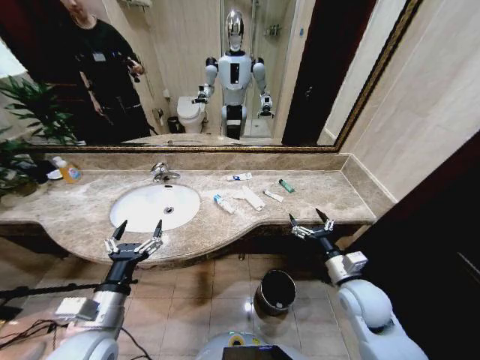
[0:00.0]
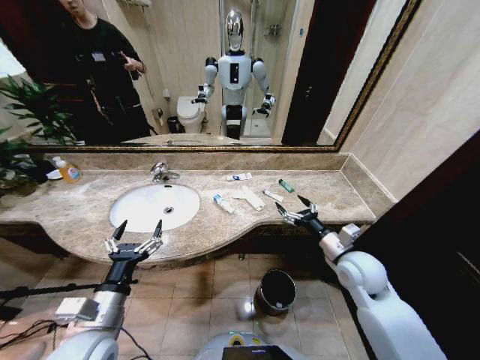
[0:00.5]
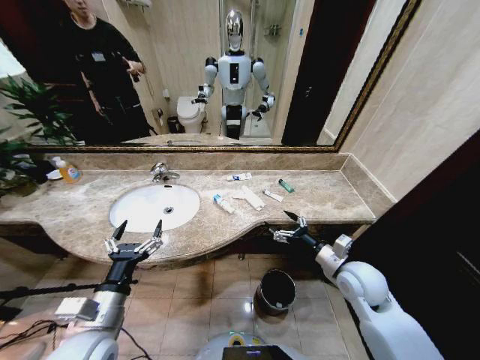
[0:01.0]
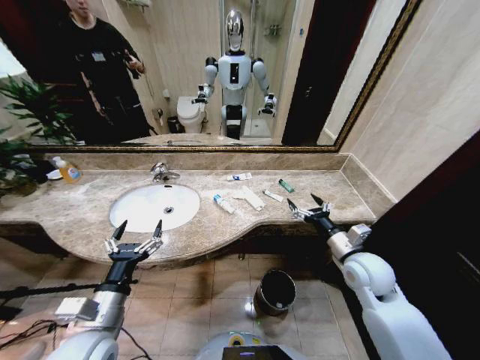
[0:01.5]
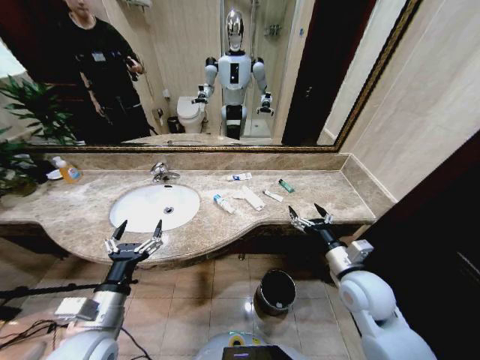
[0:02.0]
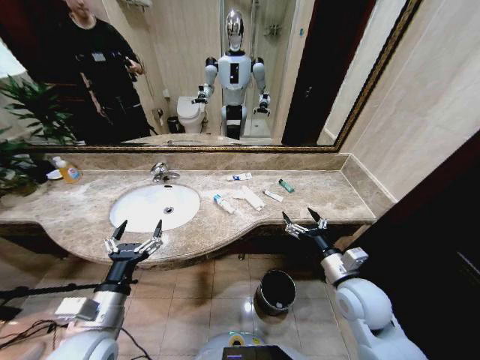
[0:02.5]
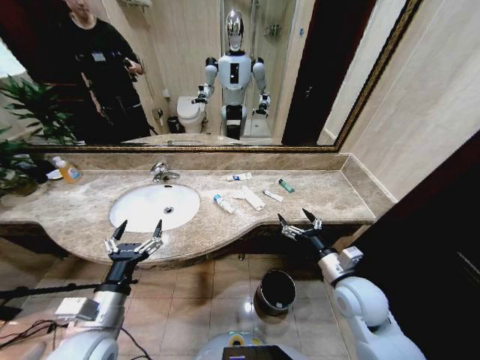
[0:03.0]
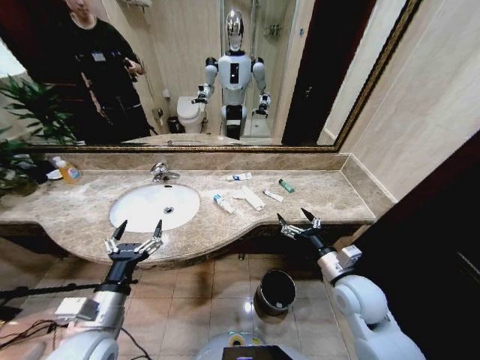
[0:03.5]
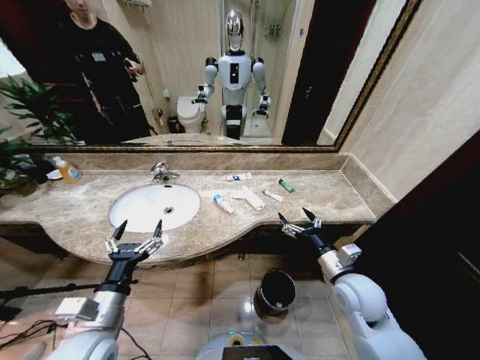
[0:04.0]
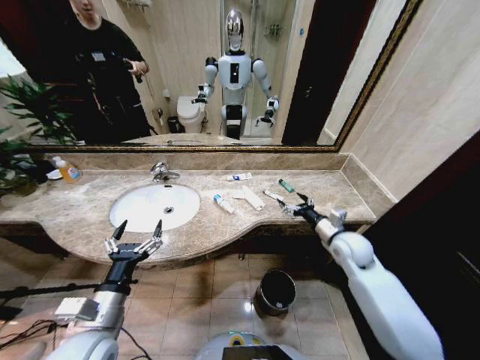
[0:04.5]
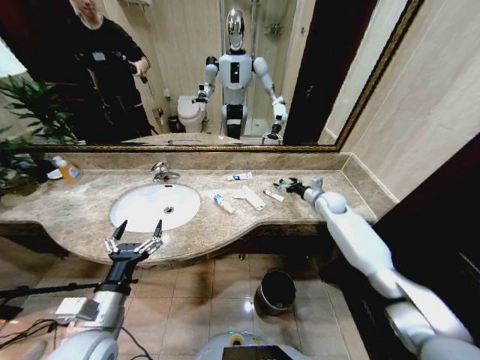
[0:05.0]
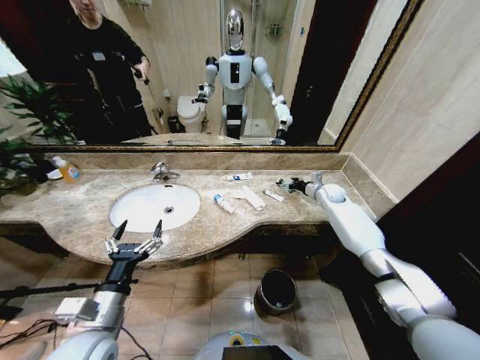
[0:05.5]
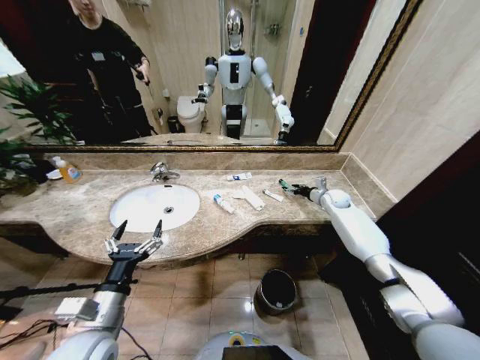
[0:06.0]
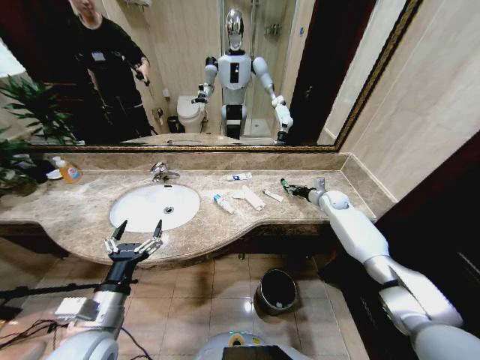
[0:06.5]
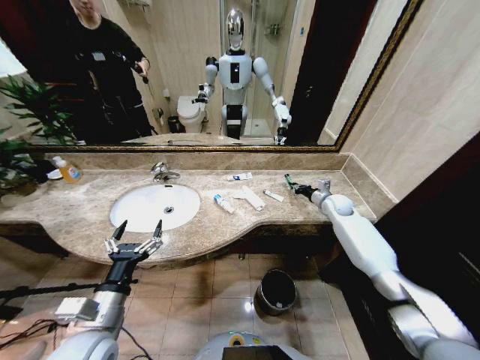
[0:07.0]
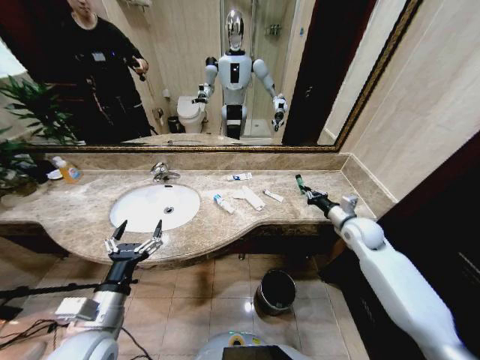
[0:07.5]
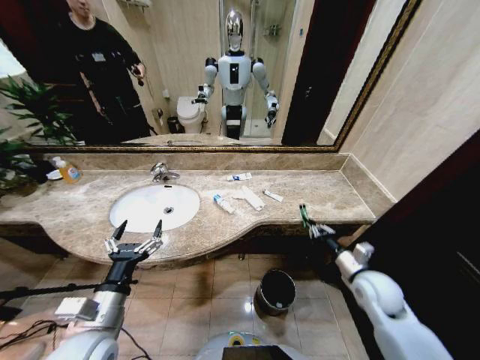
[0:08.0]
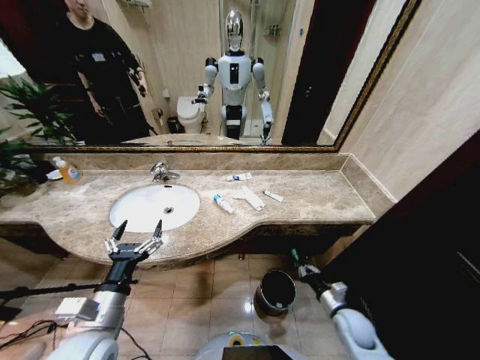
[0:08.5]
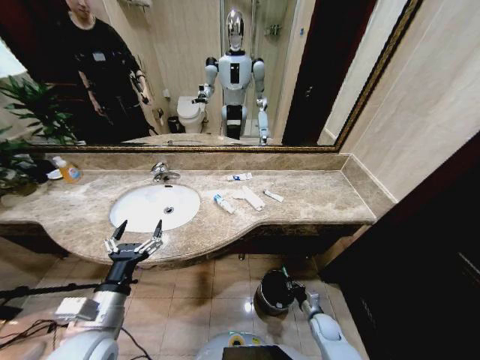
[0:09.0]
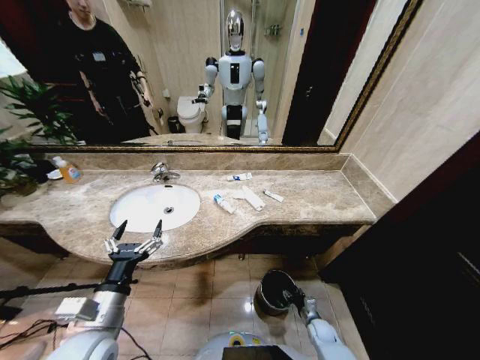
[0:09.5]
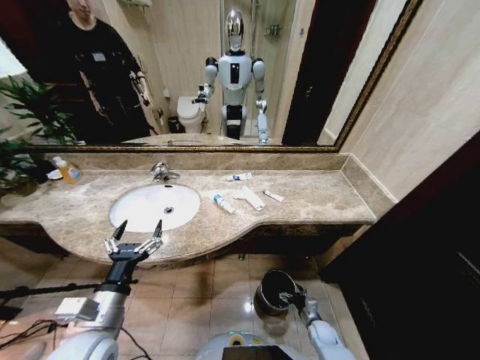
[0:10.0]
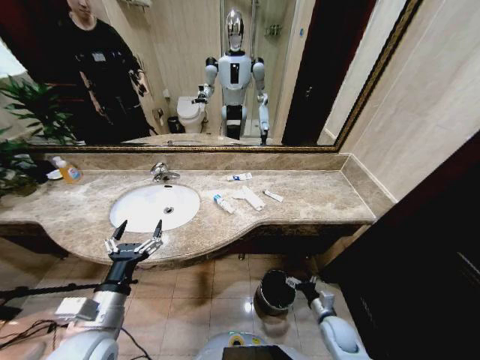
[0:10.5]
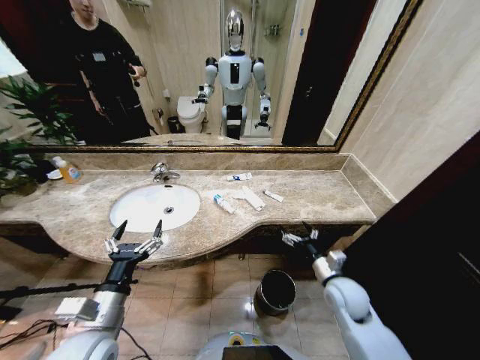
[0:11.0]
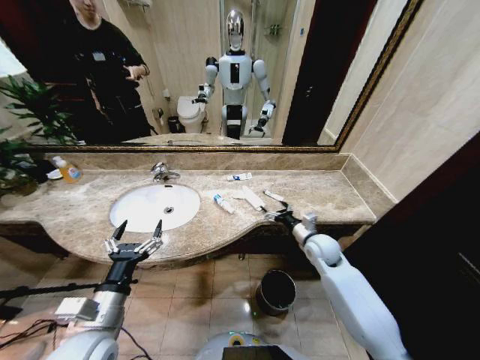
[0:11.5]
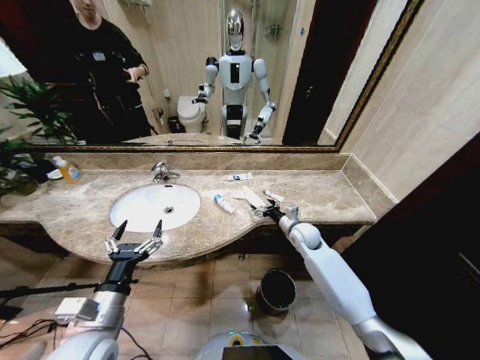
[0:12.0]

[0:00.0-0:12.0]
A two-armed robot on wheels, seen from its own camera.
Task of the whole recording: Pick up the trash from the sink and place it in the trash bin.
0:02.0 to 0:04.0: There are only small adjustments of the grippers.
0:04.0 to 0:06.0: The right gripper shifts approximately 35 cm forward.
0:06.0 to 0:08.0: The right gripper goes approximately 30 cm backward, and closes up.
0:08.0 to 0:10.0: The right gripper goes approximately 35 cm downward, and opens.
0:10.0 to 0:12.0: The right gripper goes some 40 cm upward and forward.

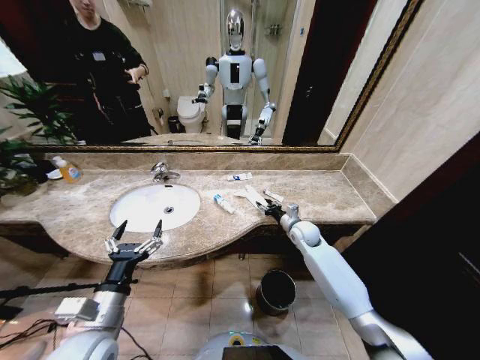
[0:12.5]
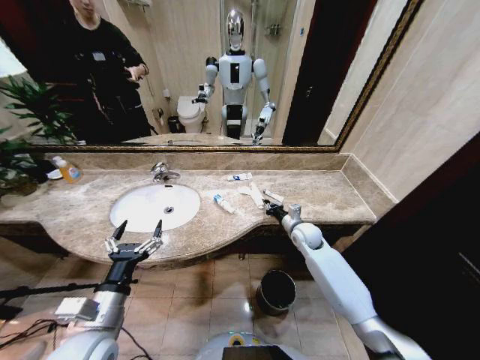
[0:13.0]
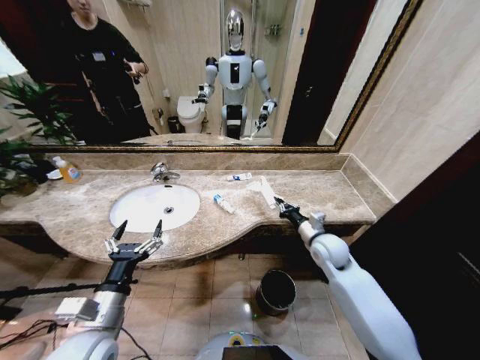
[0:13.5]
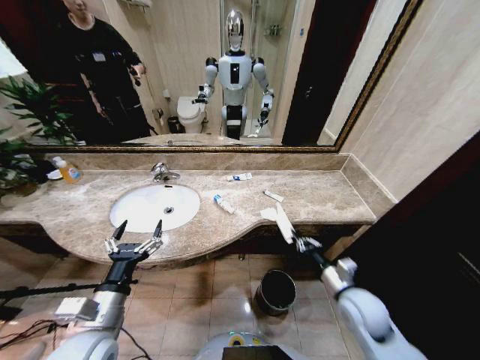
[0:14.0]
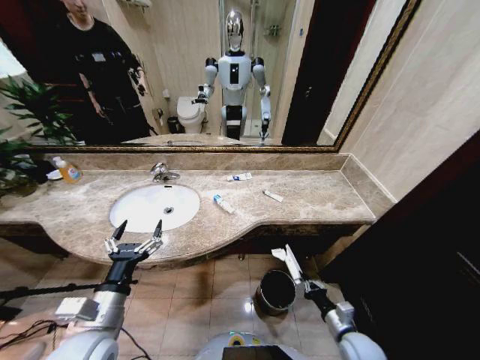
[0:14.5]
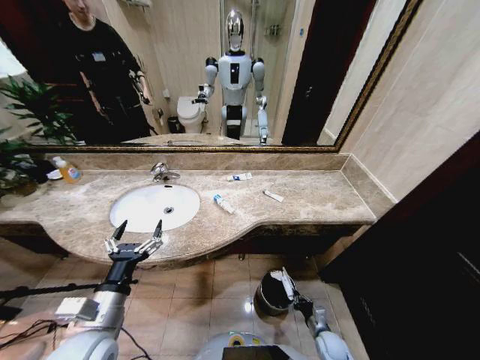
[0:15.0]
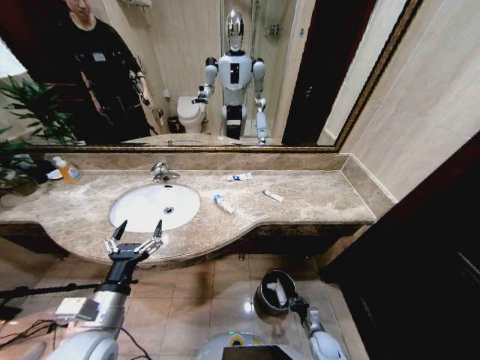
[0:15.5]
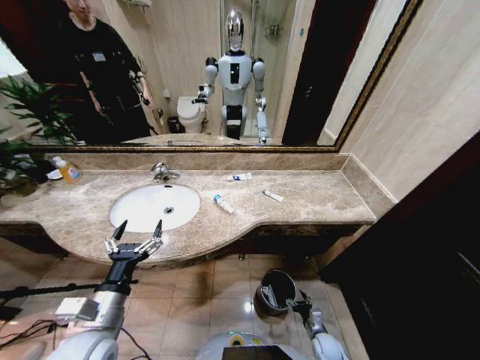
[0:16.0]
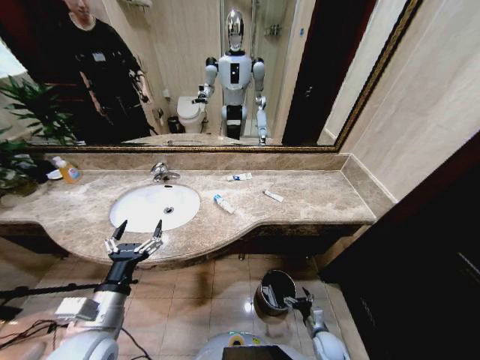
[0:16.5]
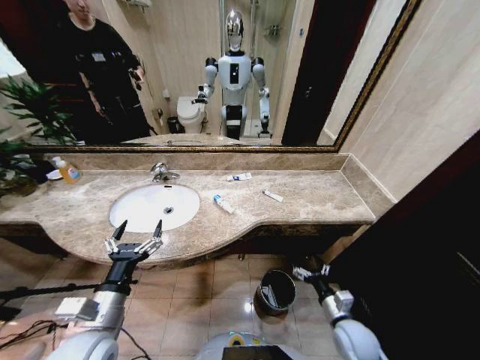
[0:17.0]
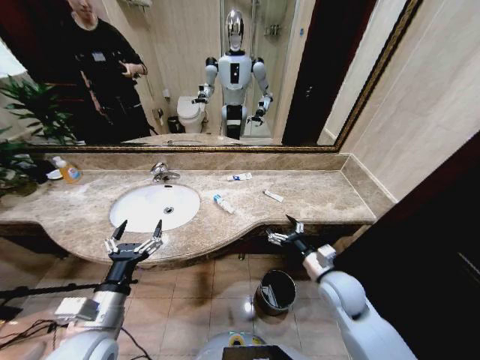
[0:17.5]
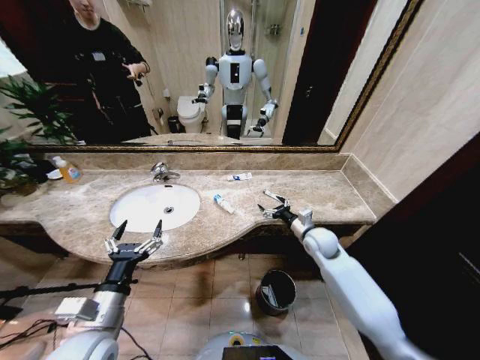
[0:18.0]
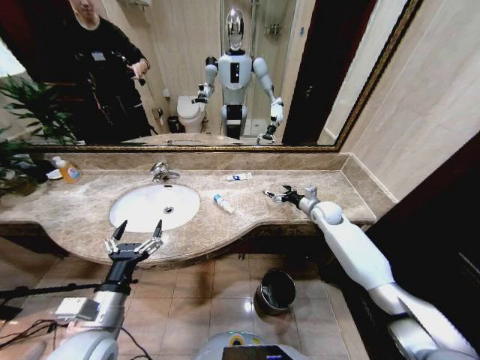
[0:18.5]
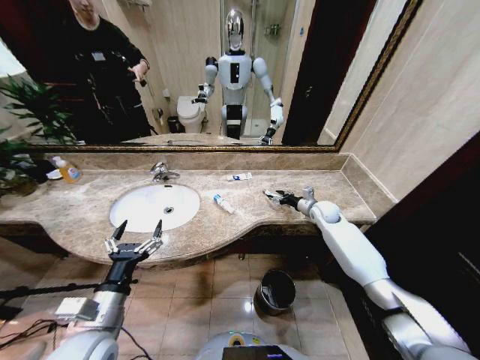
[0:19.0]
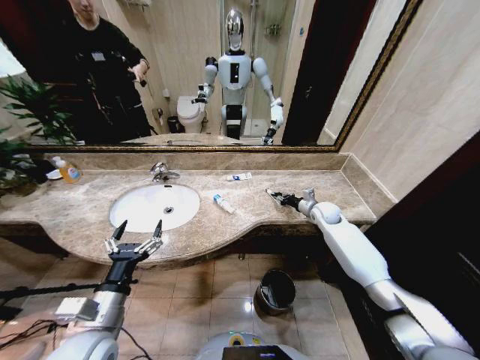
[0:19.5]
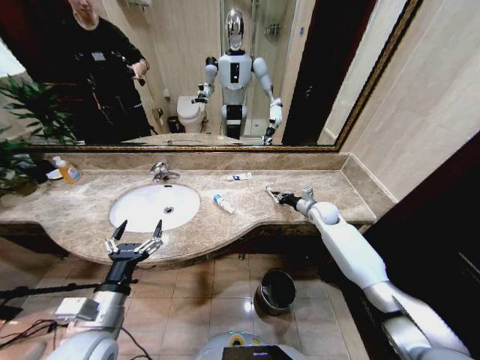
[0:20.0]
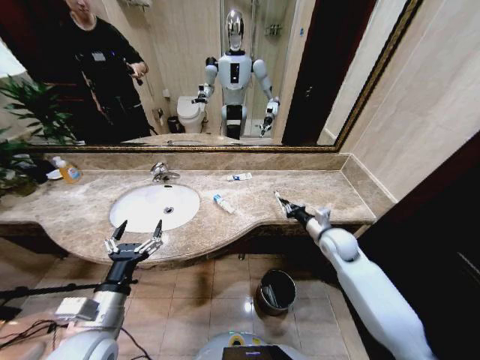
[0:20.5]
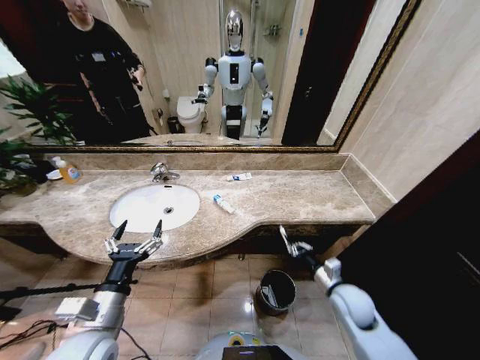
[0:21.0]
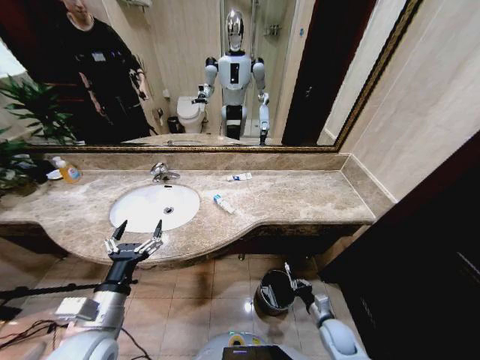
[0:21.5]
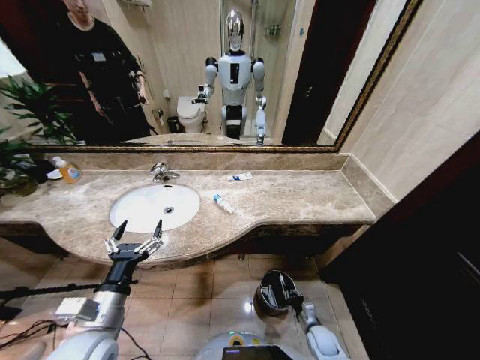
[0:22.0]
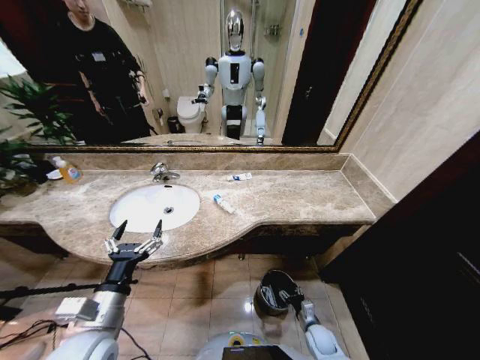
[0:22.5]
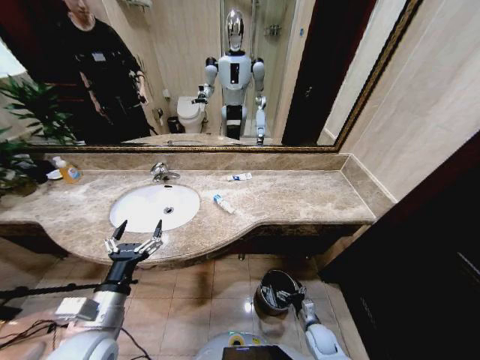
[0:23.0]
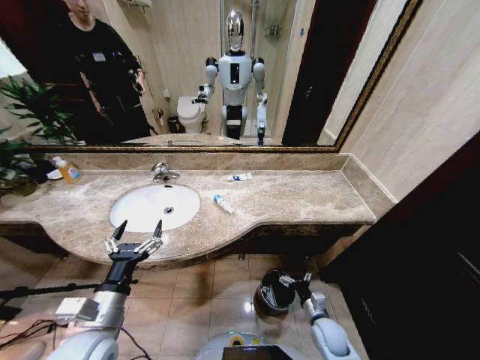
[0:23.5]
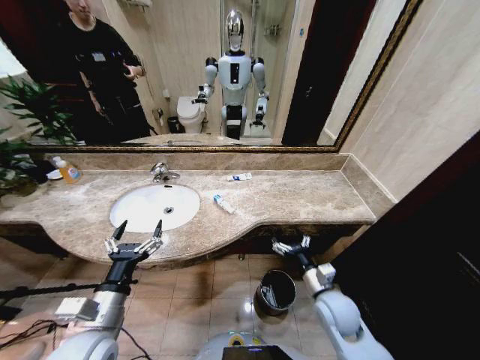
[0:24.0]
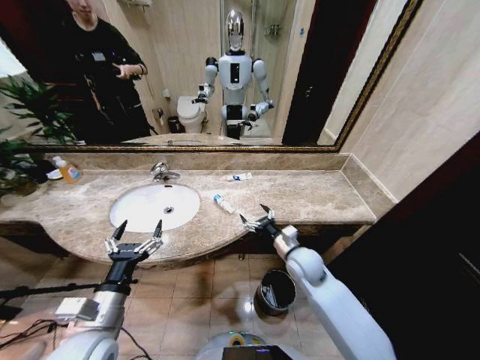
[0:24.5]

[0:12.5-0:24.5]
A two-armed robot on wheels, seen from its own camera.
Task of the whole recording: Pick up the trash from the sink and place it in the trash bin.
0:12.5 to 0:14.5: The right gripper goes approximately 30 cm backward, and closes.
0:14.5 to 0:16.5: The right gripper shifts some 15 cm downward, and opens up.
0:16.5 to 0:18.5: The right gripper shifts roughly 50 cm forward and upward.
0:18.5 to 0:20.5: The right gripper moves backward, roughly 10 cm, and closes up.
0:20.5 to 0:22.5: The right gripper heads downward and backward, covering some 35 cm, and opens up.
0:22.5 to 0:24.5: The right gripper goes roughly 30 cm upward and forward, and opens its fingers.

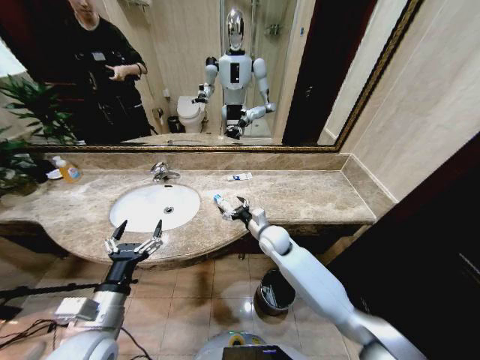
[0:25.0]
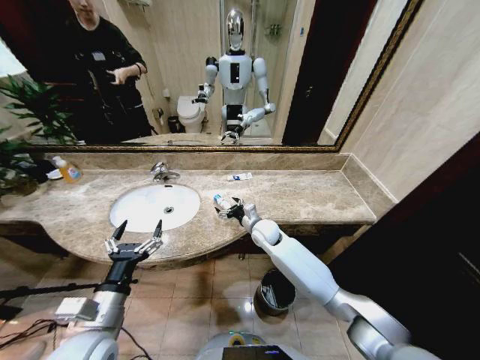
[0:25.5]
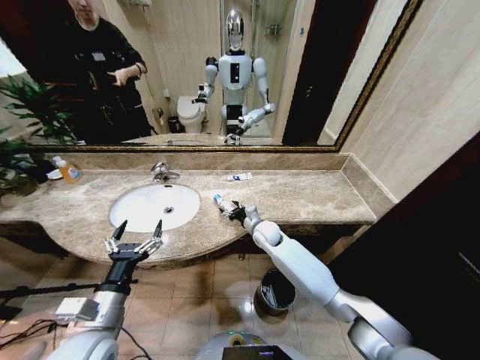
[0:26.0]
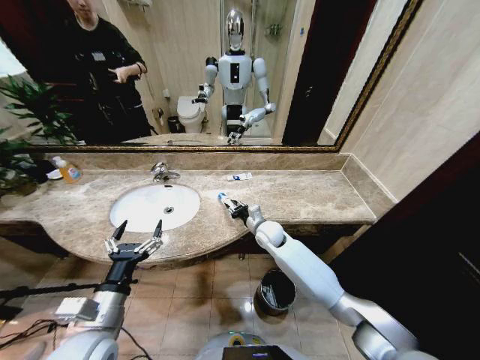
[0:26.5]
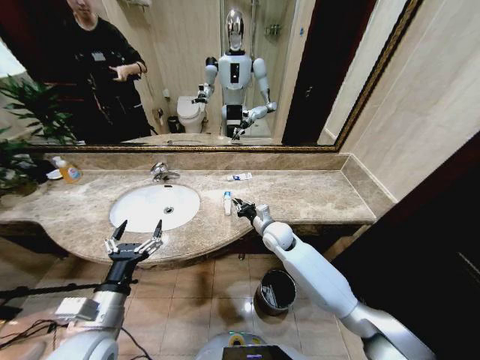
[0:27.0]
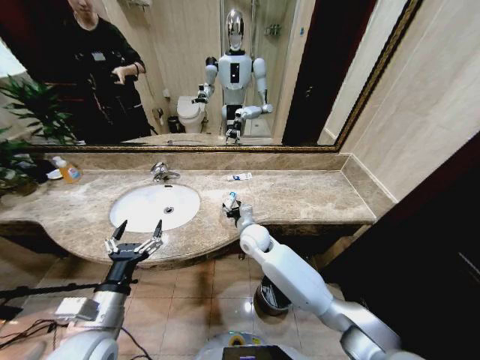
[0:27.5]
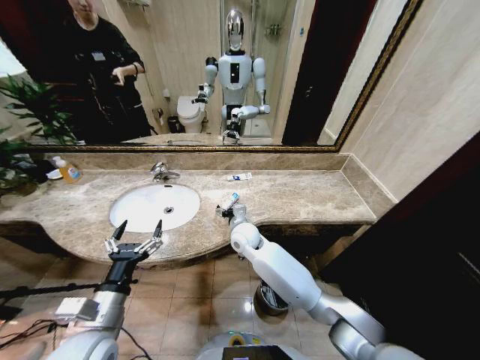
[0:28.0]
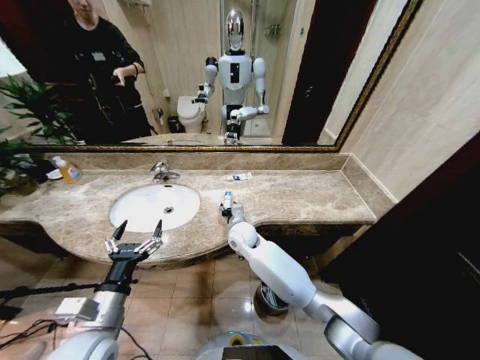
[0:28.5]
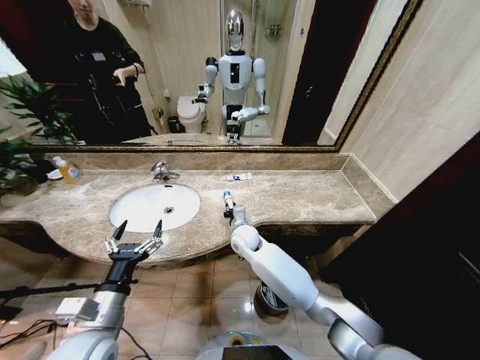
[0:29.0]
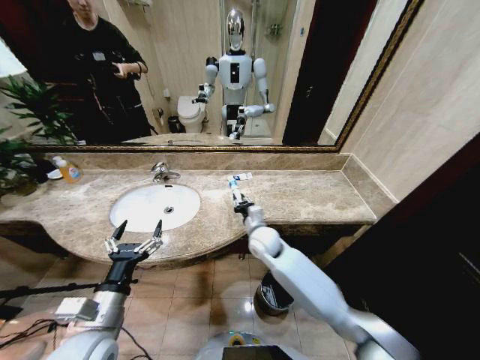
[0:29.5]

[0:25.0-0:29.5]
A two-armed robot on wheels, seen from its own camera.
Task of the whole recording: Pick up the trash from the sink and place it in the trash bin.
0:25.0 to 0:27.0: The right gripper closes.
0:27.0 to 0:29.5: The right gripper opens, then closes again.
